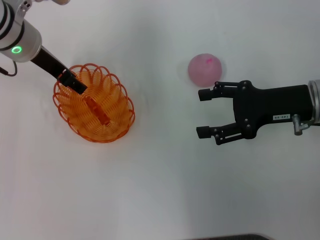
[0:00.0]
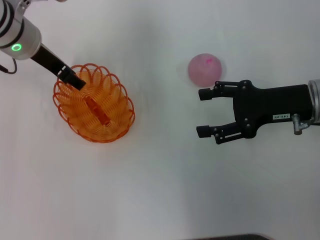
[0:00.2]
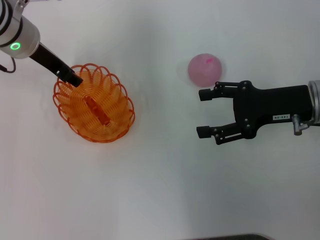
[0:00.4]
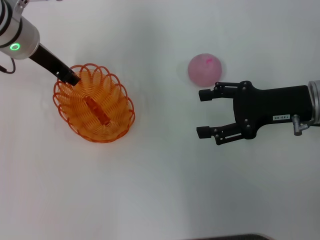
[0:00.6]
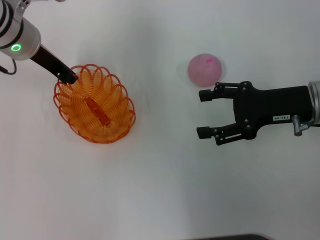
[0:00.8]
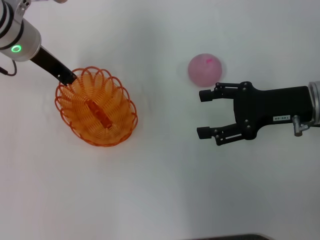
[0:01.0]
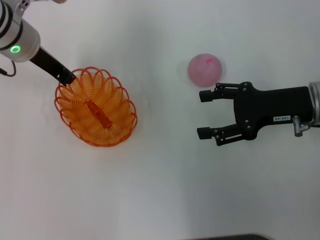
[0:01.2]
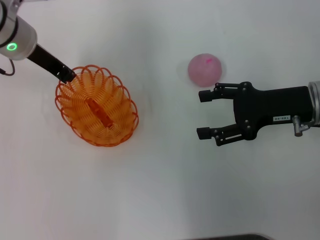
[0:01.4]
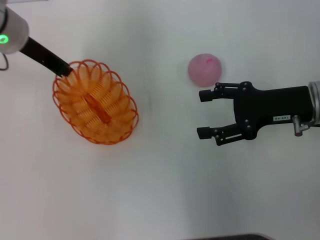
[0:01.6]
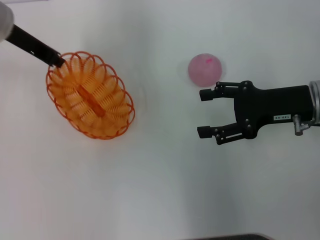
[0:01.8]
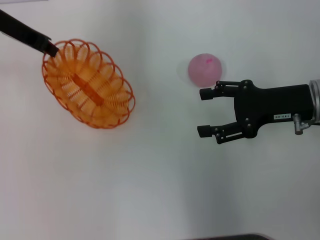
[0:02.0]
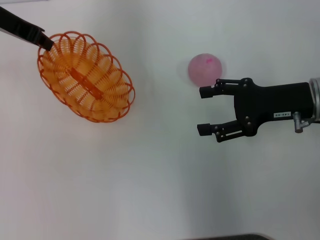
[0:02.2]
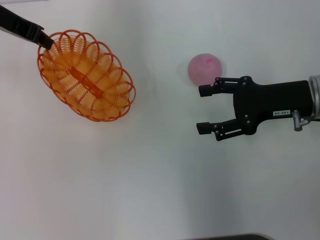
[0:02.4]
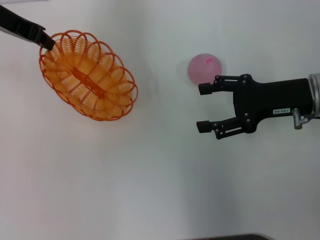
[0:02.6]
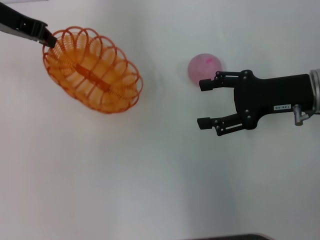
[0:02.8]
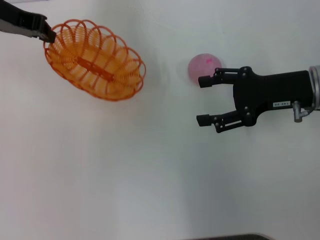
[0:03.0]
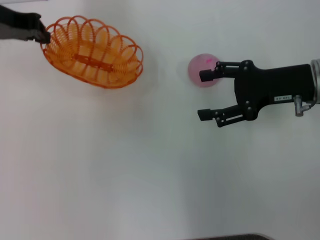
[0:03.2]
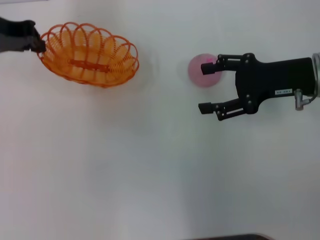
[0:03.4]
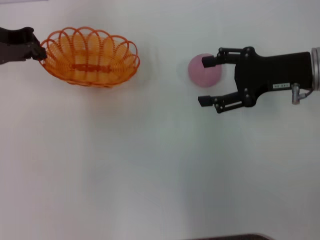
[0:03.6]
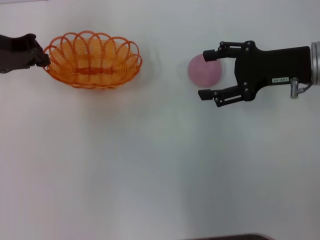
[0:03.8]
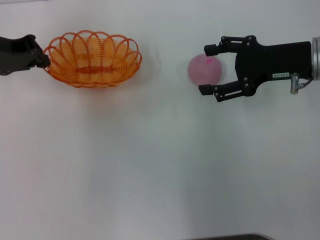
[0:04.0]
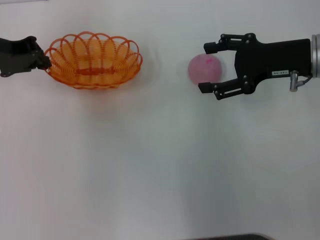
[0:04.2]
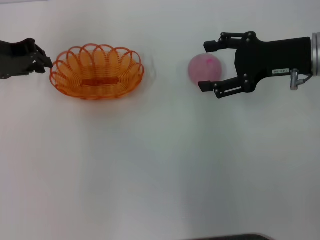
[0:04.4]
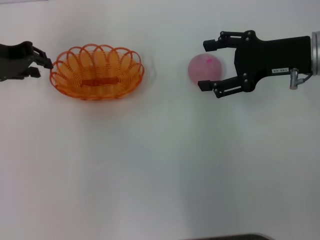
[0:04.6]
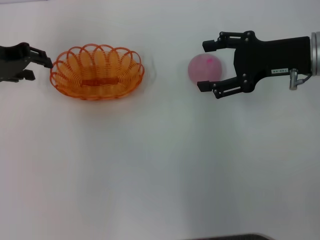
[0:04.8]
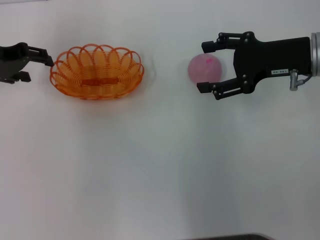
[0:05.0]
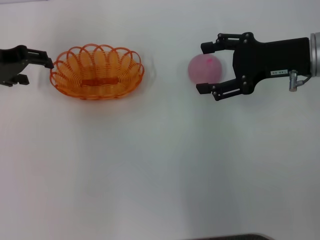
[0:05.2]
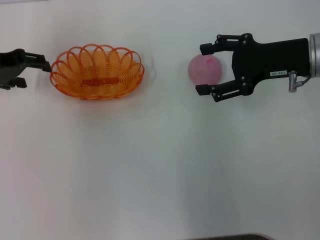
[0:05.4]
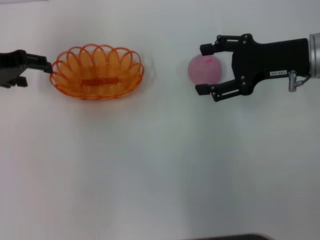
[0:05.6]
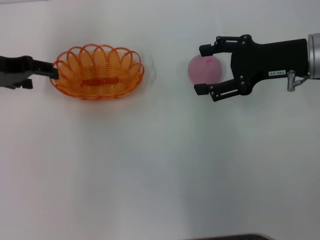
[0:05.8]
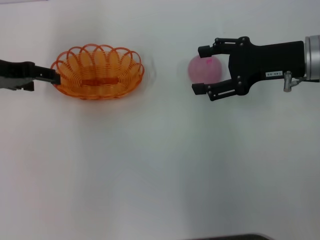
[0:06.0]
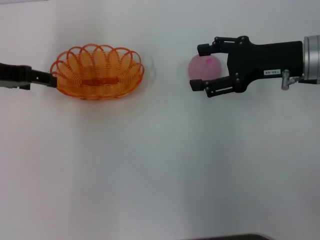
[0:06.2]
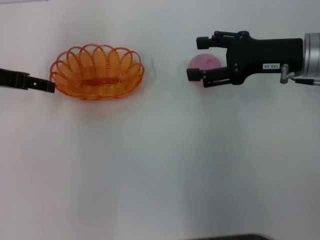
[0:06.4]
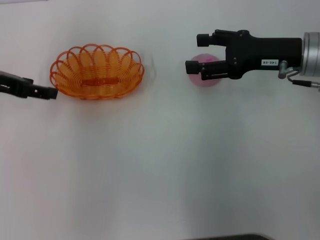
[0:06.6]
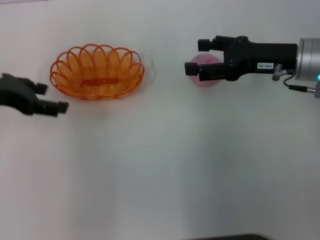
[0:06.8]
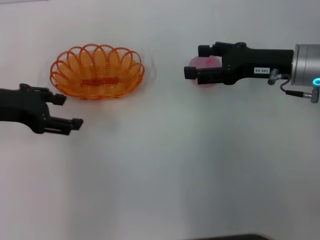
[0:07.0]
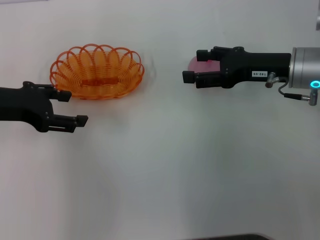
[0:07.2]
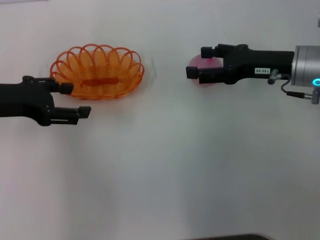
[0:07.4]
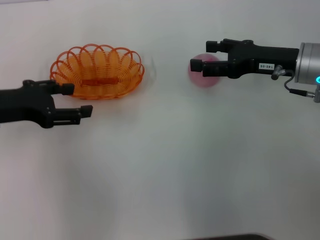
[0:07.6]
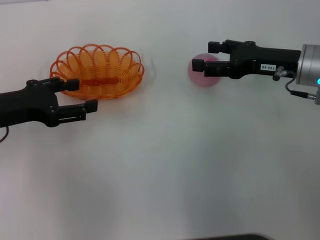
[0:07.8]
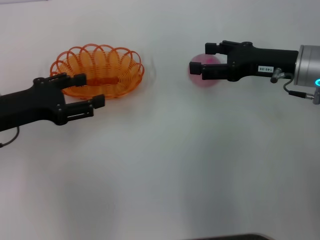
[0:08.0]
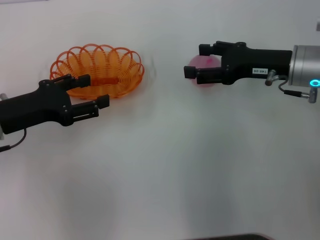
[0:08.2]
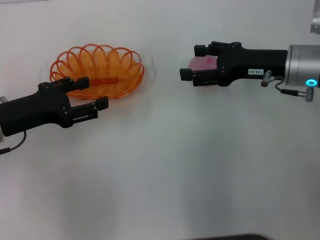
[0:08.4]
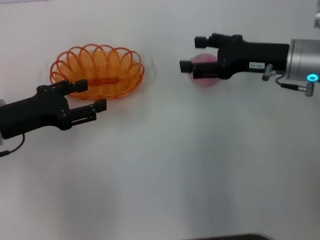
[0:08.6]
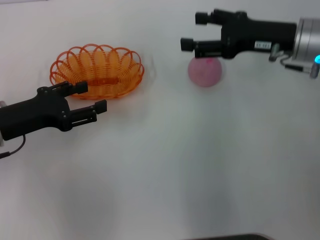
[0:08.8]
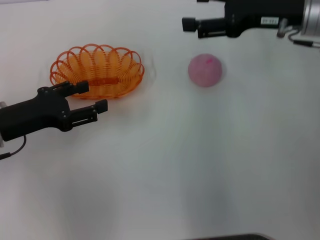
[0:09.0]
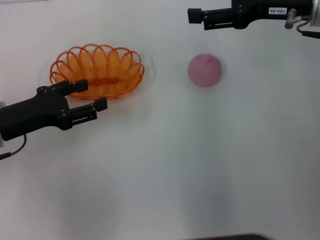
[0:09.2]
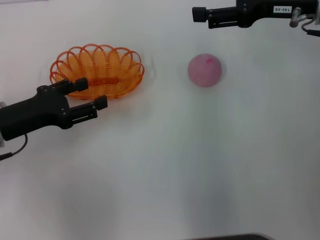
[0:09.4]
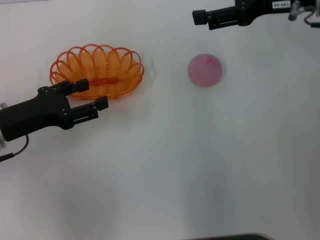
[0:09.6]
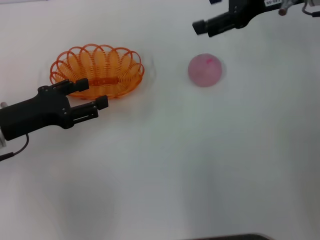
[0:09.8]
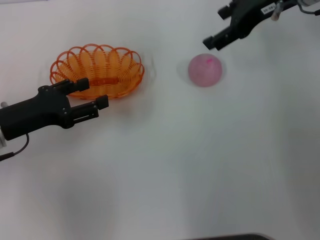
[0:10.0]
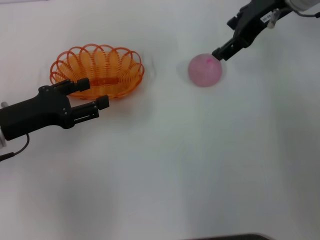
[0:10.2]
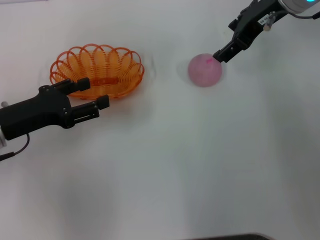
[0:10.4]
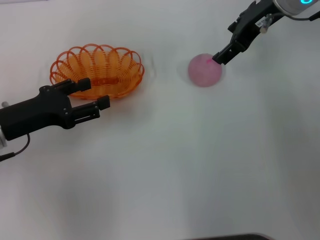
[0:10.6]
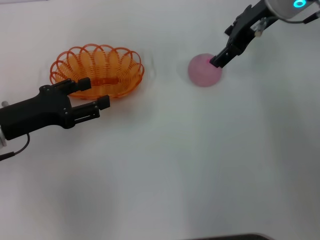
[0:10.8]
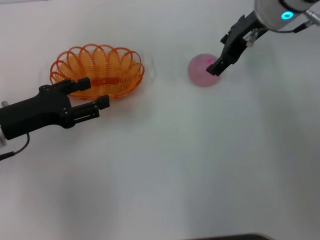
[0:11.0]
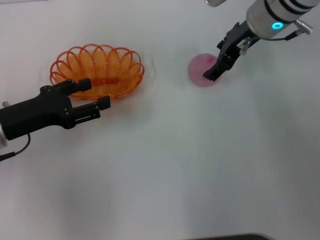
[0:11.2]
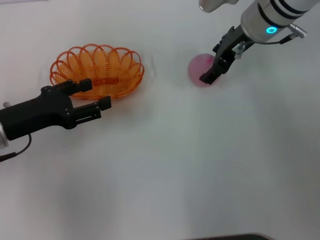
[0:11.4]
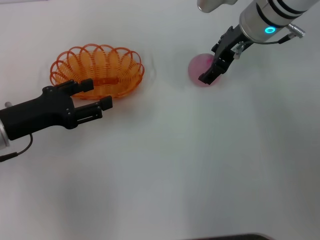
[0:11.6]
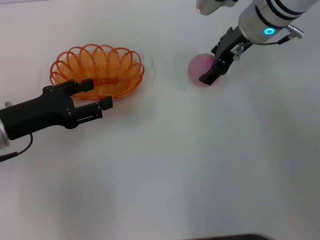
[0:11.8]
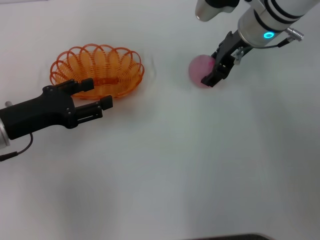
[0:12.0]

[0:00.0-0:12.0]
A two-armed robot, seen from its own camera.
Step, 0:00.0 to 0:02.6: Pick up the basket with the left gripper.
Step, 0:03.0 to 0:06.6: Place the basket in the center of view with the left gripper.
0:00.0 to 0:01.6: The left gripper closes its fingers.
0:01.6 to 0:03.0: The left gripper ends up some 5 cm from where it was.
0:03.0 to 0:04.4: The left gripper shifts about 5 cm downward.
0:04.4 to 0:06.0: The left gripper opens.
0:06.0 to 0:07.6: The left gripper moves backward, roughly 5 cm.
0:07.6 to 0:09.0: The left gripper shifts by some 5 cm; the right gripper heads upward, covering approximately 5 cm.
0:09.0 to 0:10.4: The right gripper changes place by roughly 10 cm.
0:10.4 to 0:12.0: The right gripper travels downward by approximately 5 cm.

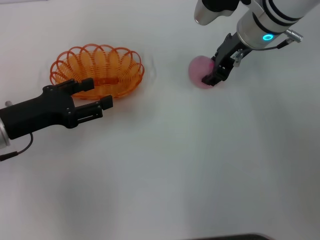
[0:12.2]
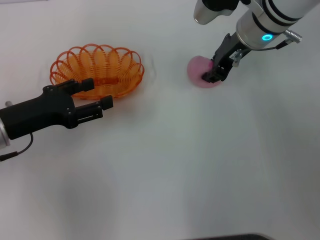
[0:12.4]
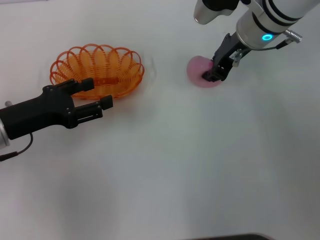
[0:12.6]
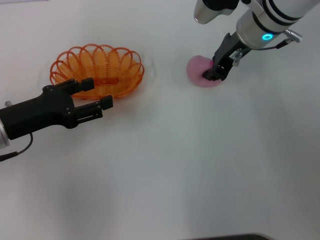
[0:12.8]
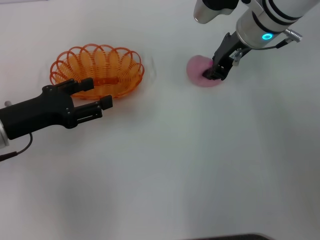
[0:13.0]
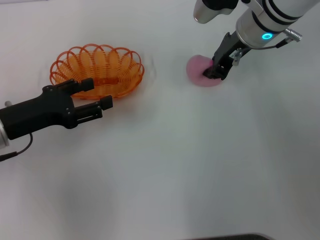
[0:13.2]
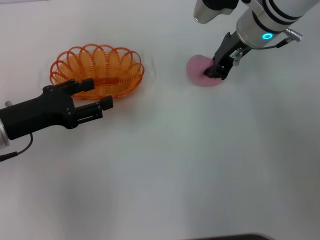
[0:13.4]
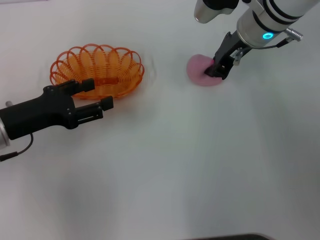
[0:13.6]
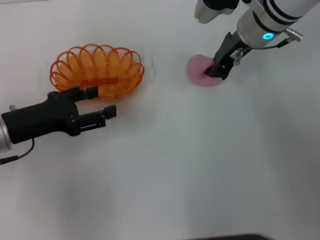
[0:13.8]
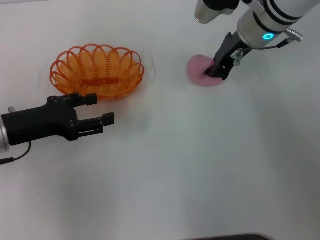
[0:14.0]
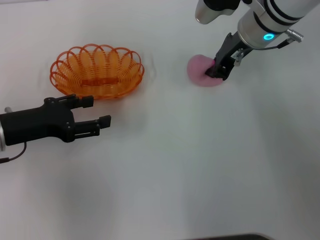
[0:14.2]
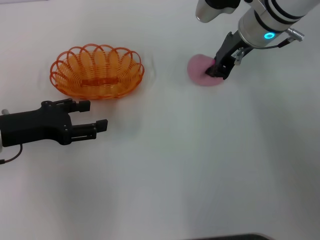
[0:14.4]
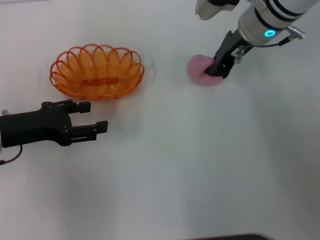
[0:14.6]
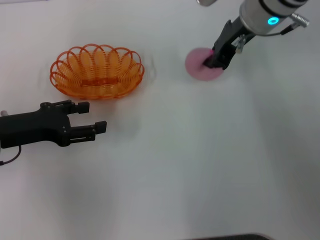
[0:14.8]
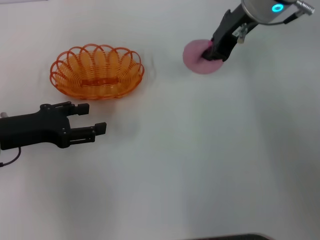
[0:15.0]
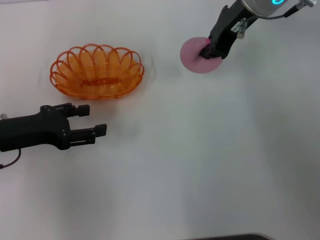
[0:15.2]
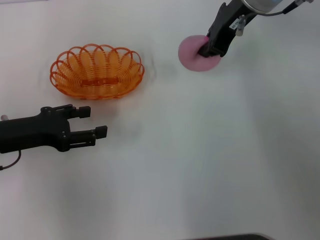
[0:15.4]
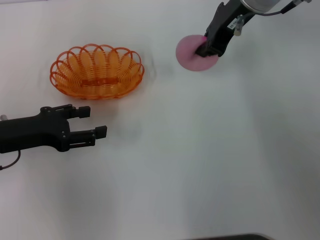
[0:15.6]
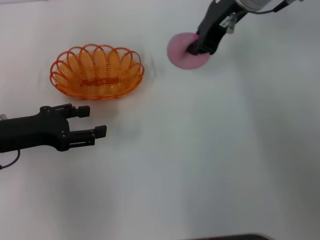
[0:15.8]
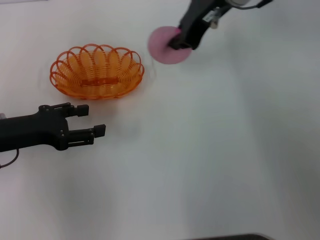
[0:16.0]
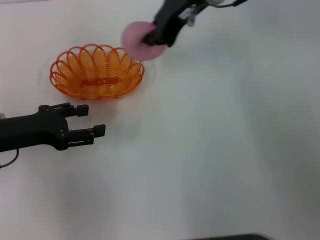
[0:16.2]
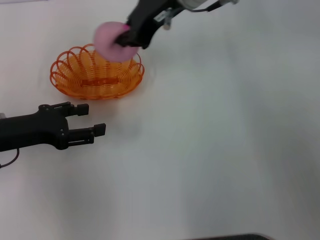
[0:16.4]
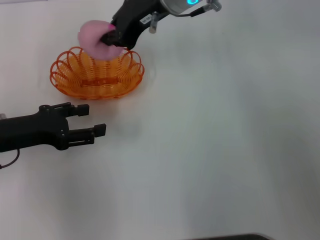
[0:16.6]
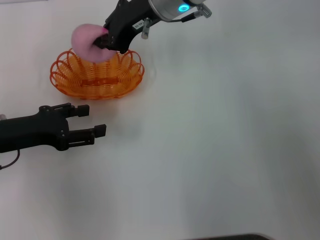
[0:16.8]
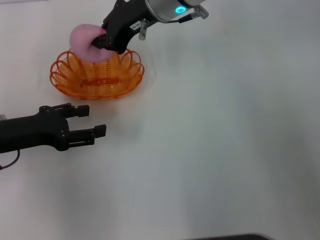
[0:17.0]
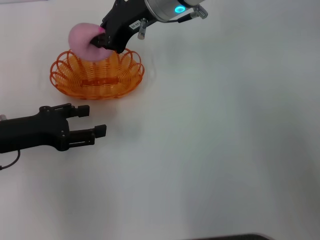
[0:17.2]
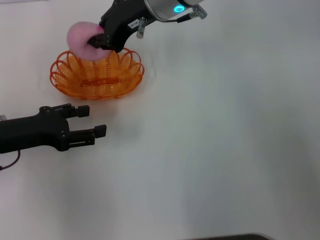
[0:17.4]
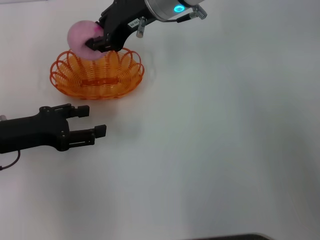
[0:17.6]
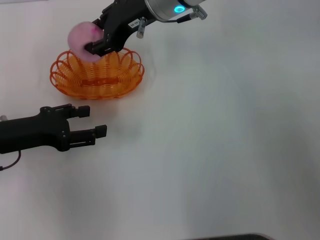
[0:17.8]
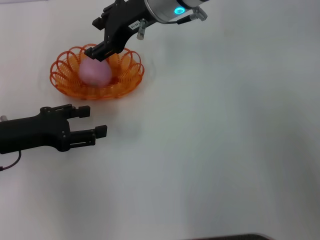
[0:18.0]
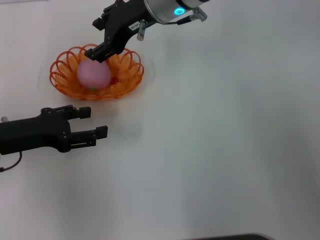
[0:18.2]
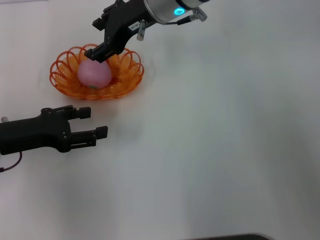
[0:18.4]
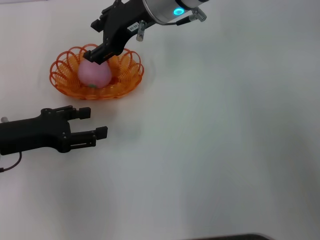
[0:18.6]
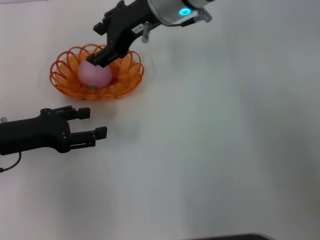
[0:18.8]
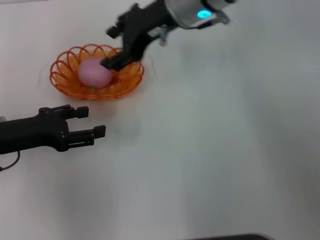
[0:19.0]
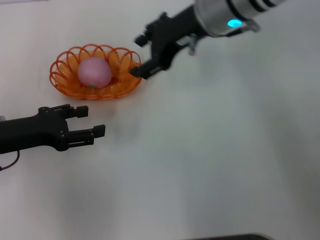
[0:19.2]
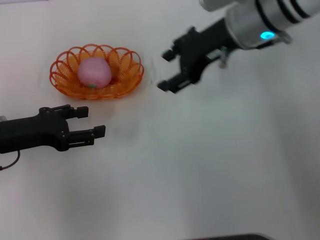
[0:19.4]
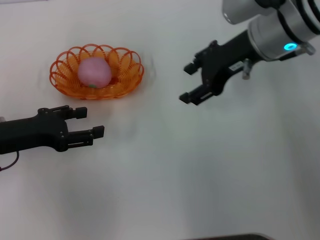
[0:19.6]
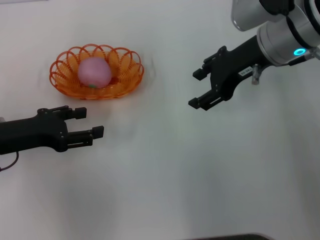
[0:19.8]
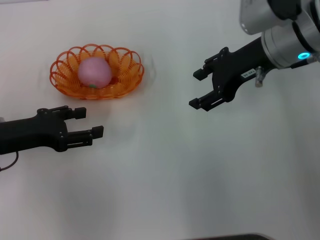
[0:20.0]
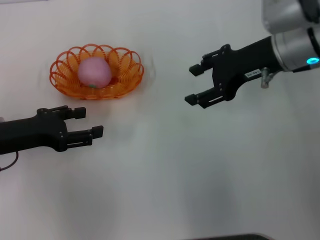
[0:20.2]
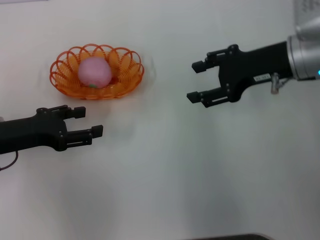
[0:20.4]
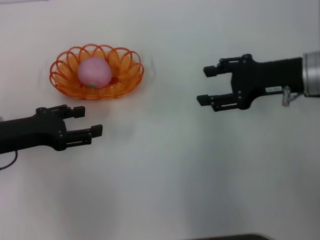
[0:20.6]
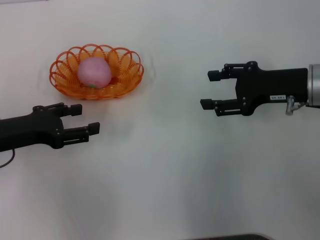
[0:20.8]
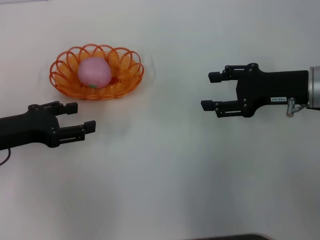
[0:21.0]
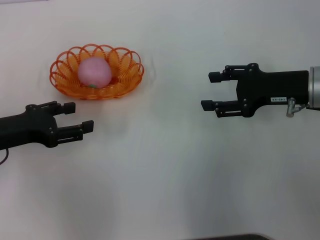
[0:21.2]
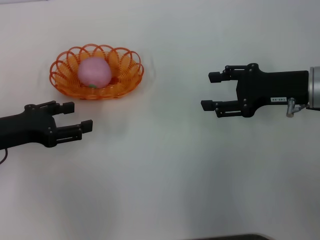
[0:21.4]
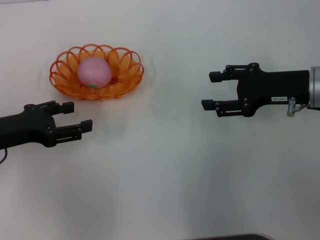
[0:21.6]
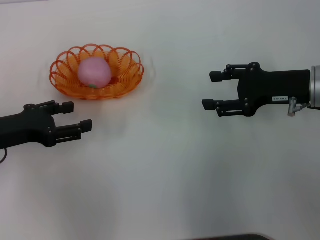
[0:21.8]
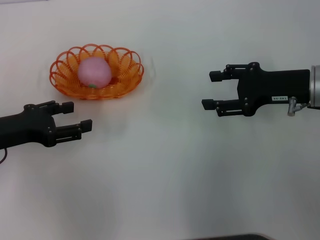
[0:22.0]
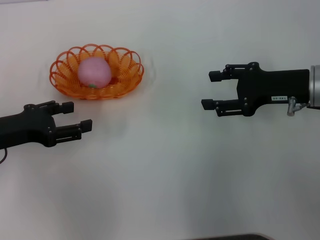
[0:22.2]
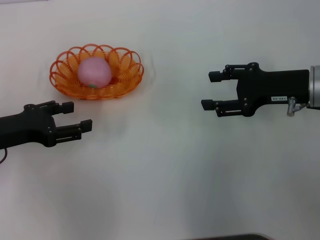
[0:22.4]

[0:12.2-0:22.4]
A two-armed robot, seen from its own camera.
Step, 0:12.2 to 0:15.8: Pick up the peach with the right gripper.
Step, 0:16.0 to 0:19.4: Place the peach into the basket with the right gripper.
0:12.2 to 0:13.6: The right gripper closes.
0:13.6 to 0:15.2: The right gripper heads upward, covering about 5 cm.
0:15.2 to 0:16.6: The right gripper is displaced to the left by about 10 cm.
0:16.6 to 0:18.0: The right gripper opens up.
0:18.0 to 0:19.4: The right gripper travels to the right by approximately 10 cm.
0:19.4 to 0:21.0: The right gripper goes about 15 cm to the right, downward and backward.
0:21.0 to 0:22.4: Both grippers stay about where they are.
